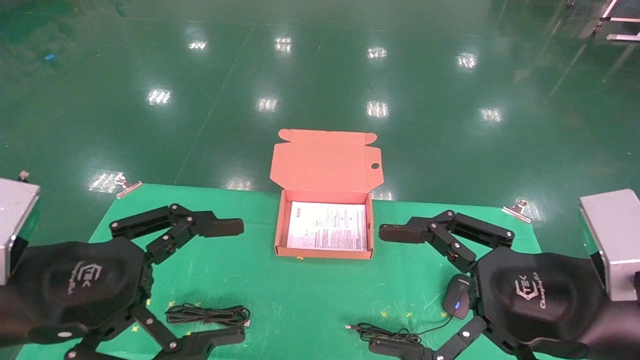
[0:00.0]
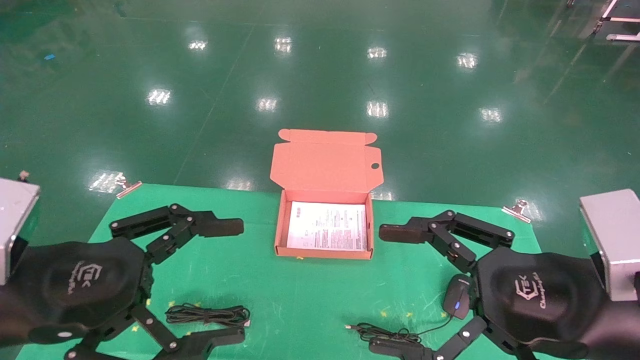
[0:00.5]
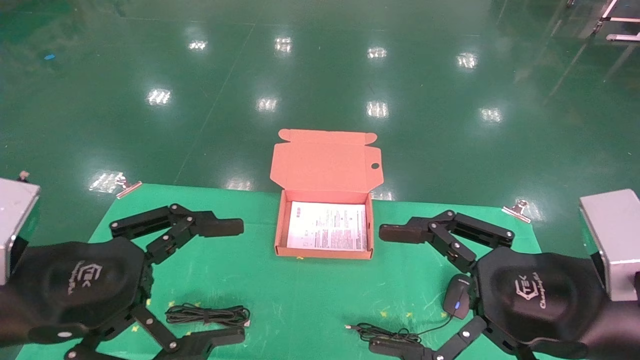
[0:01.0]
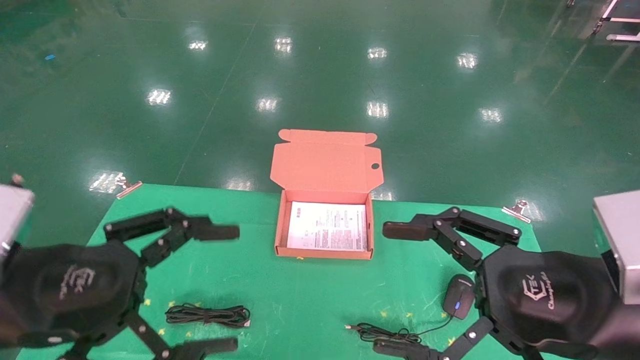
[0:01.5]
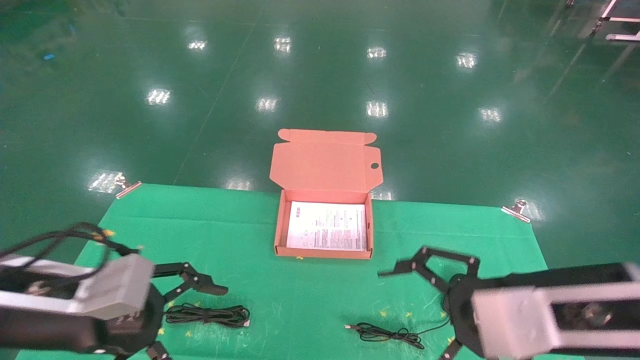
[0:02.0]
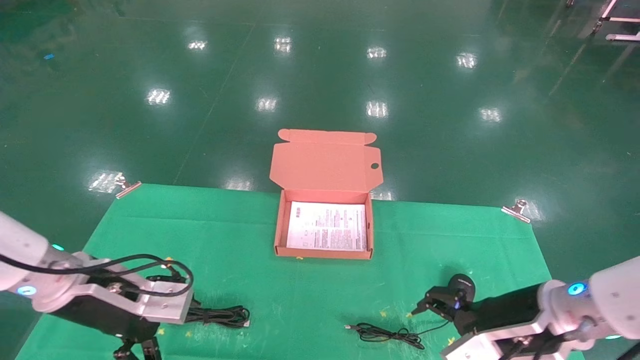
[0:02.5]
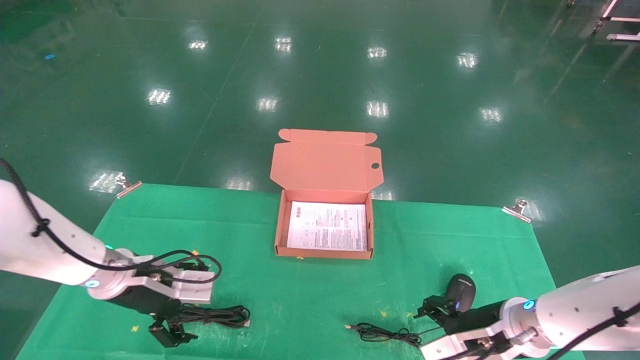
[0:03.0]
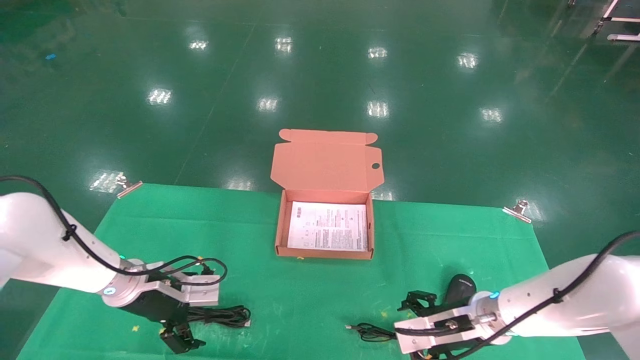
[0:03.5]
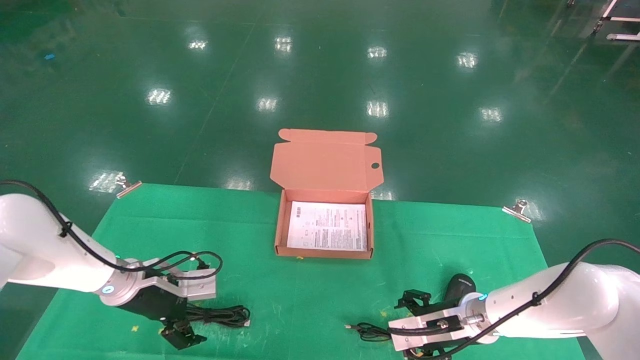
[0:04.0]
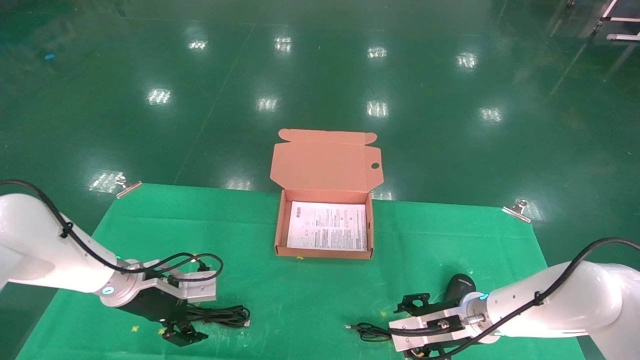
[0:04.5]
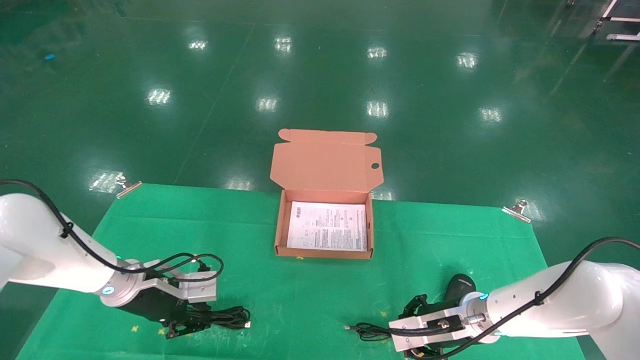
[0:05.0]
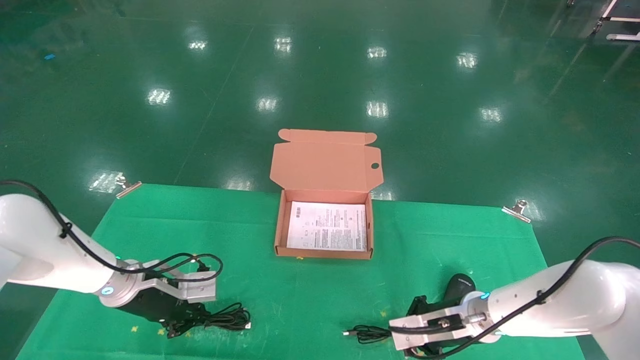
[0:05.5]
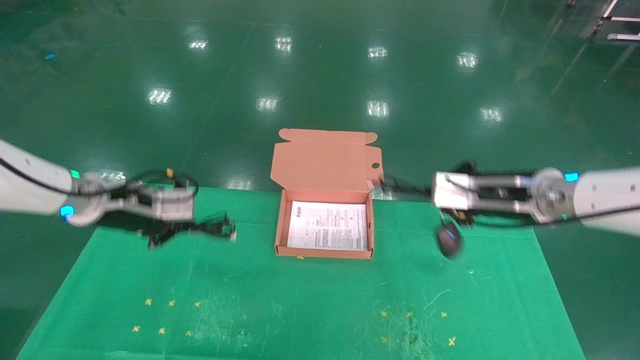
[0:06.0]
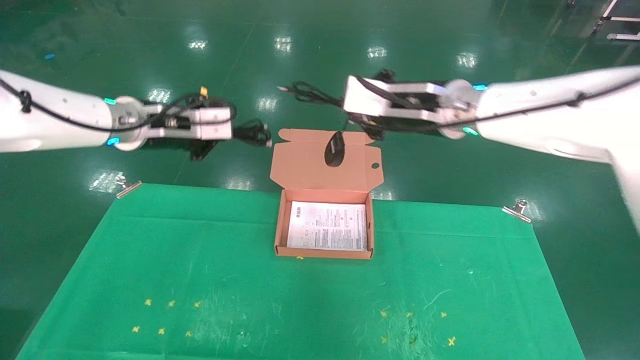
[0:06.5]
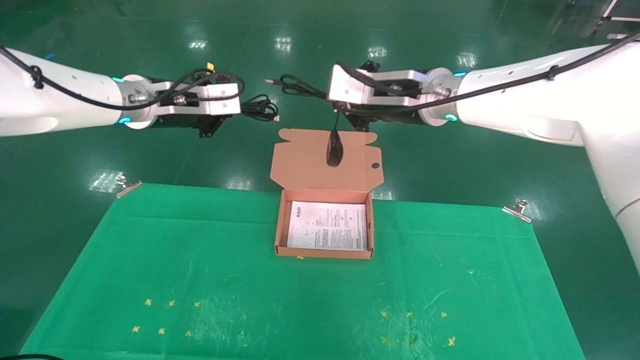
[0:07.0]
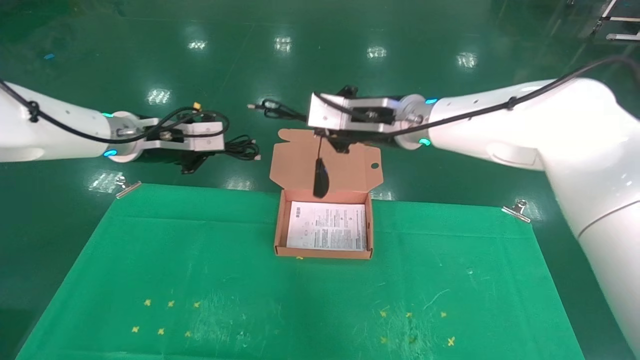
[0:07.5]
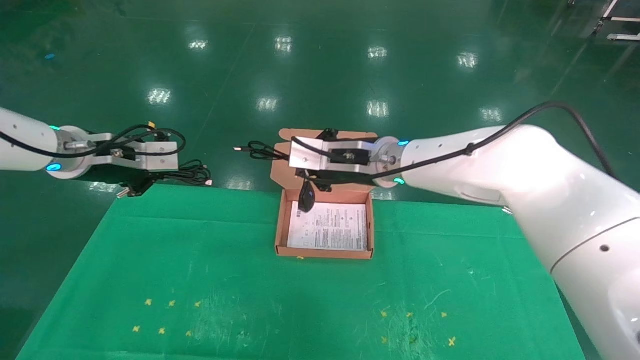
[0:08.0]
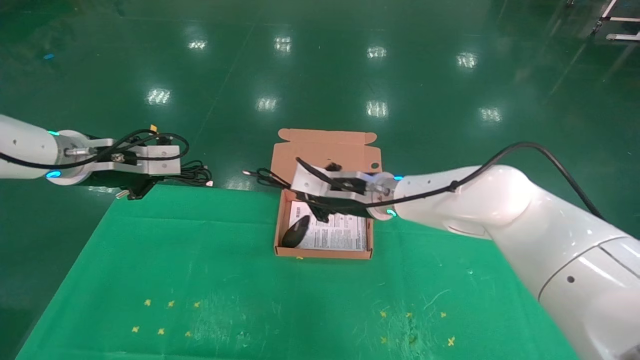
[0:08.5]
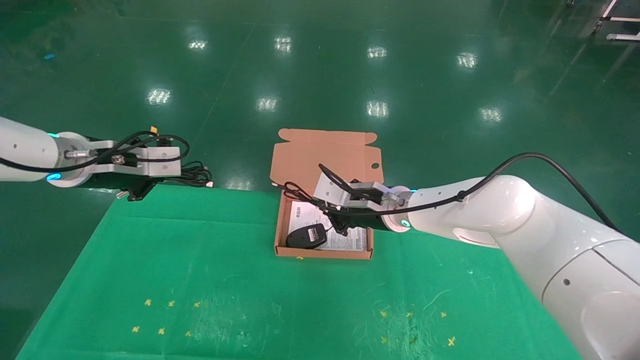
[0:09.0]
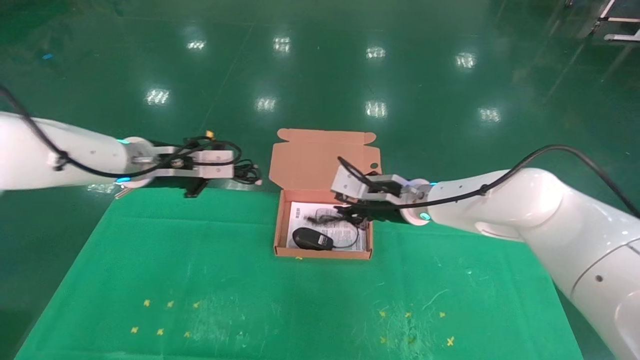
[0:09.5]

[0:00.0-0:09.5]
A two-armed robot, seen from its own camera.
Task of the whole recording: grasp data cable left put into box grasp mouse right put into box.
Step, 0:01.0 to 0:05.5: Grab and pick up both the mouse and power cord from the accessory packaging area at the same time.
0:00.0 to 0:02.0: The right gripper changes place by some 5 cm. The left gripper is displaced forward by some 5 cm.
0:02.0 to 0:04.0: Both grippers move forward and downward, roughly 20 cm.
0:04.0 to 0:05.5: The right gripper closes up. The left gripper closes.
0:05.5 to 0:07.5: The right gripper shifts roughly 30 cm upward and to the left. The left gripper moves upward, about 25 cm.
0:07.5 to 0:09.5: The right gripper goes roughly 15 cm downward.

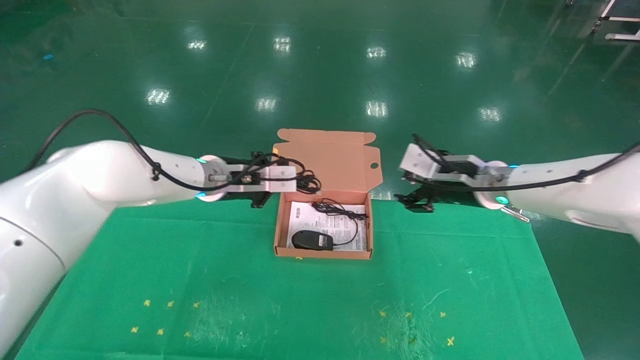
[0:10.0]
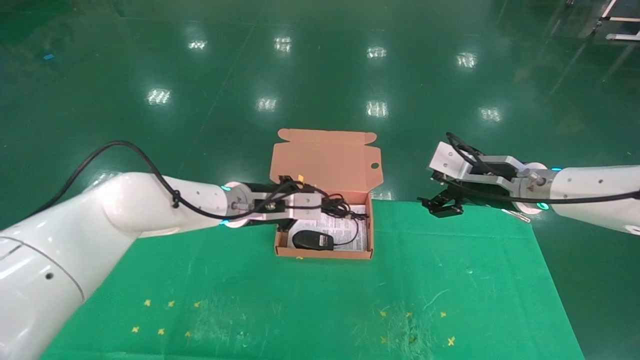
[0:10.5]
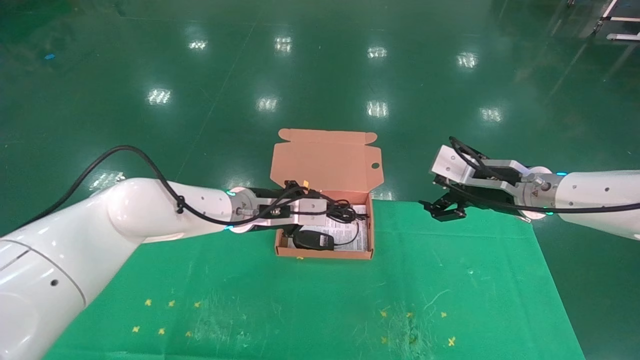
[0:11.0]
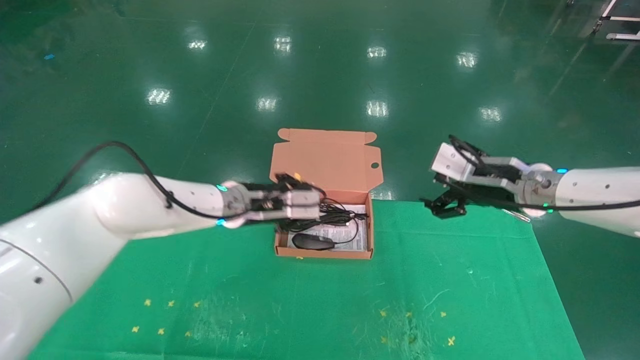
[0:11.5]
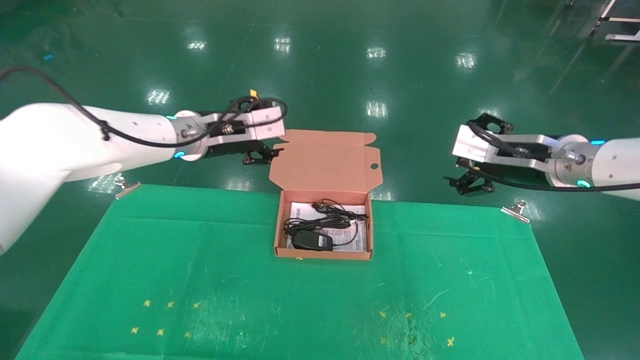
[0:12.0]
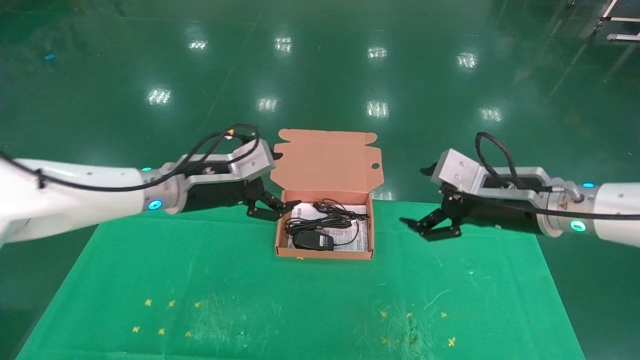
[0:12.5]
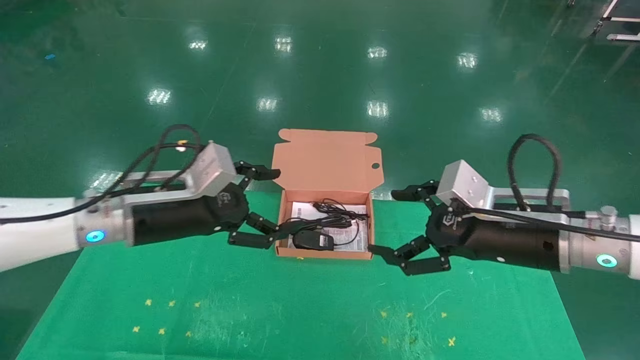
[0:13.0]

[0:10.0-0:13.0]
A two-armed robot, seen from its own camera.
Task of the whole recording: grasp data cable left put into box grasp mouse right put into box.
0:10.0 to 0:11.5: The right gripper moves to the right, about 5 cm, and opens up.
0:11.5 to 0:13.0: The right gripper is displaced backward by about 5 cm. Meanwhile the left gripper moves backward and to the left, roughly 10 cm, and opens up.

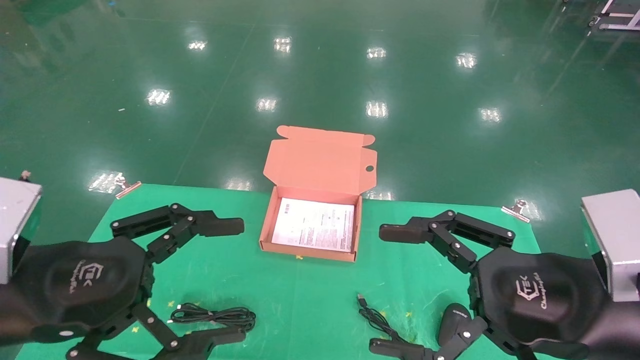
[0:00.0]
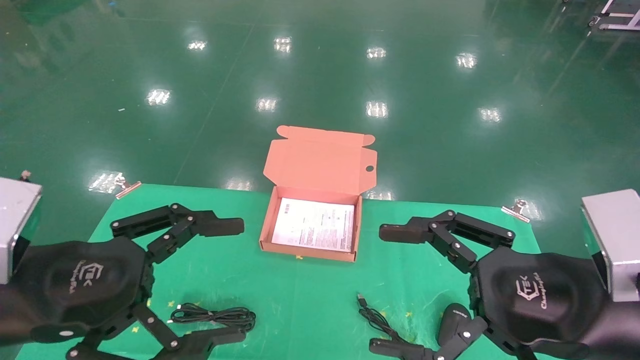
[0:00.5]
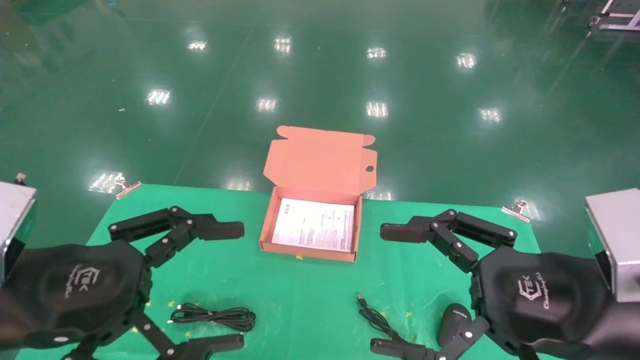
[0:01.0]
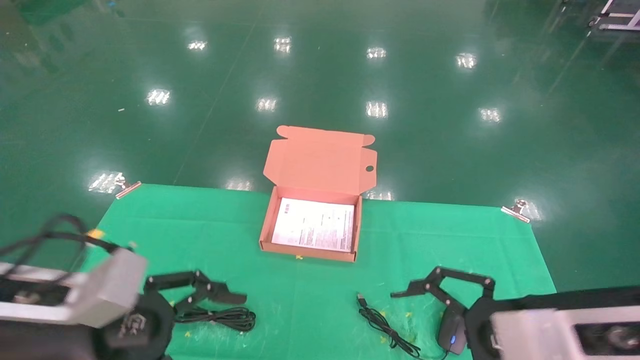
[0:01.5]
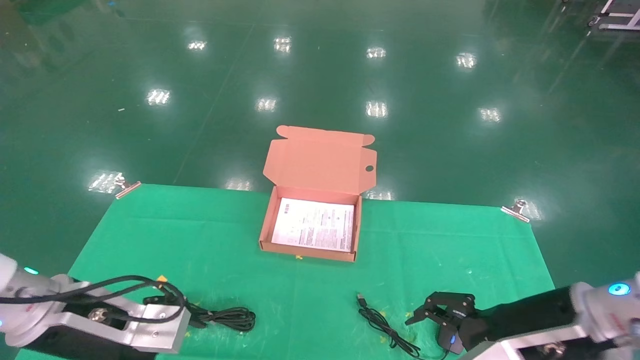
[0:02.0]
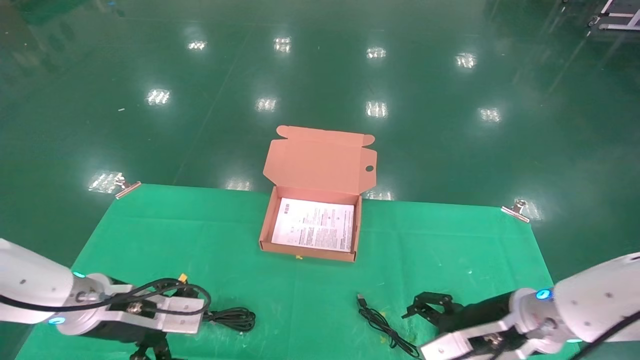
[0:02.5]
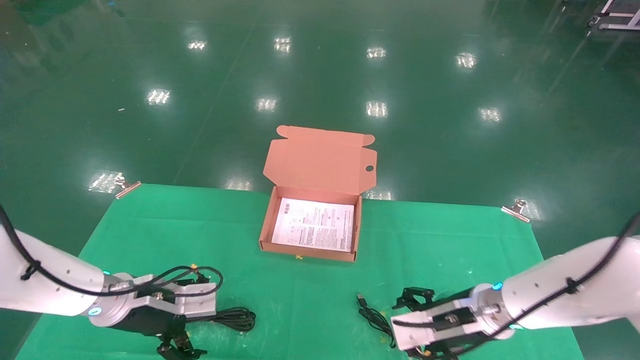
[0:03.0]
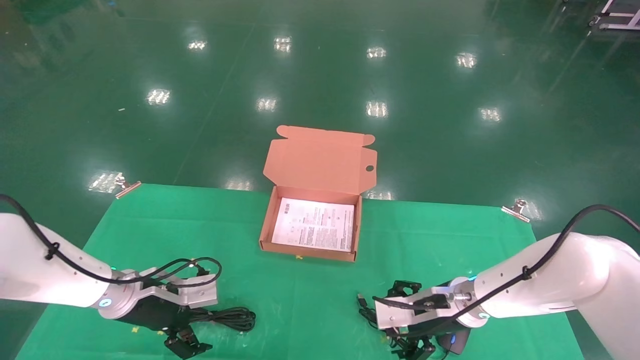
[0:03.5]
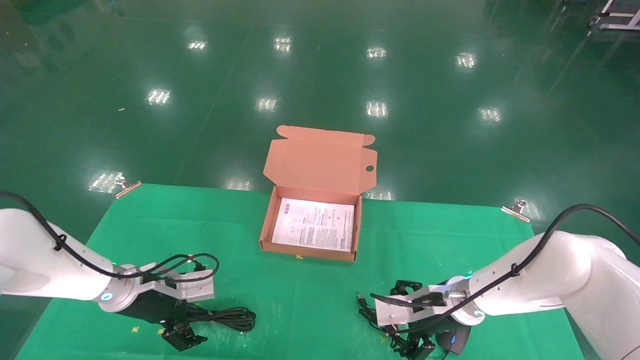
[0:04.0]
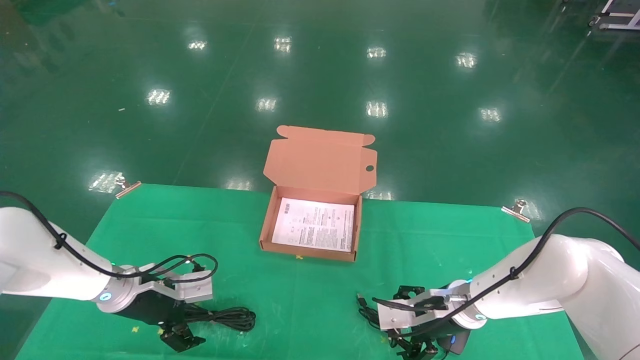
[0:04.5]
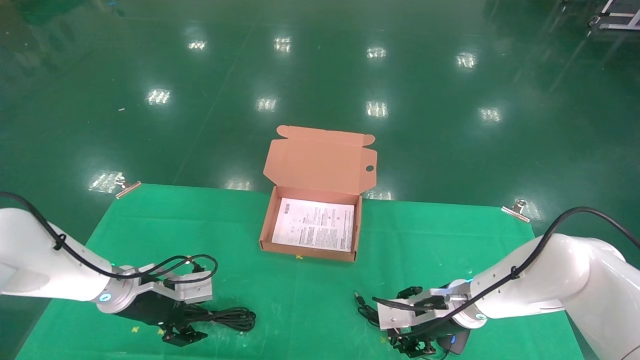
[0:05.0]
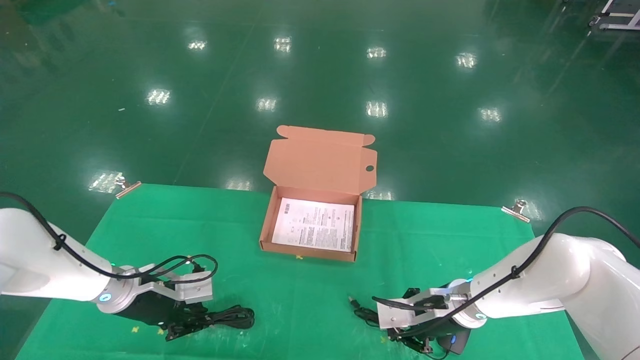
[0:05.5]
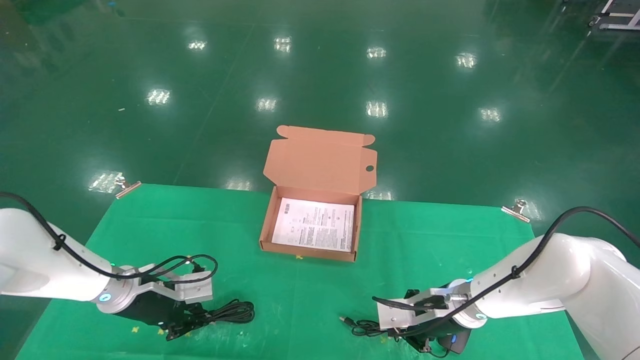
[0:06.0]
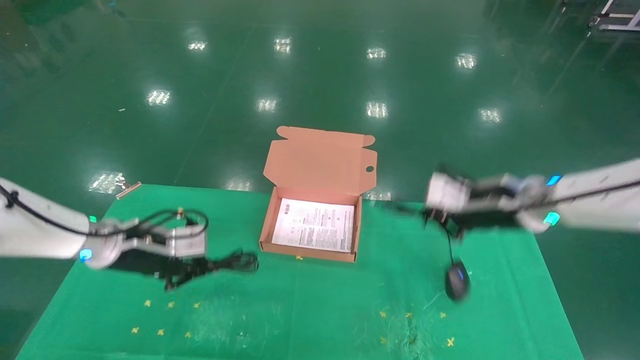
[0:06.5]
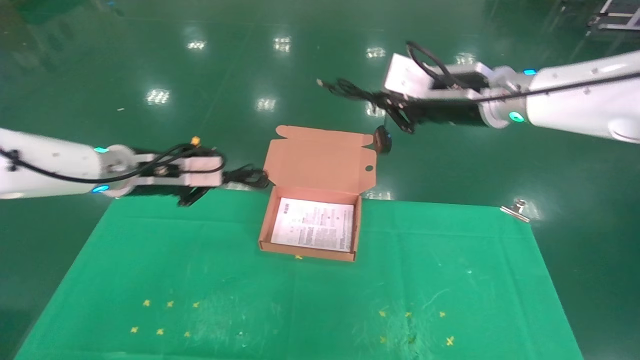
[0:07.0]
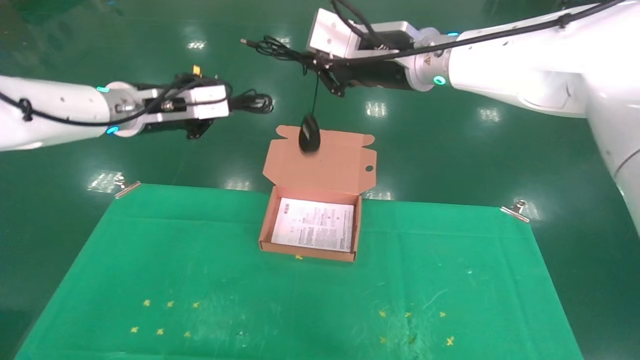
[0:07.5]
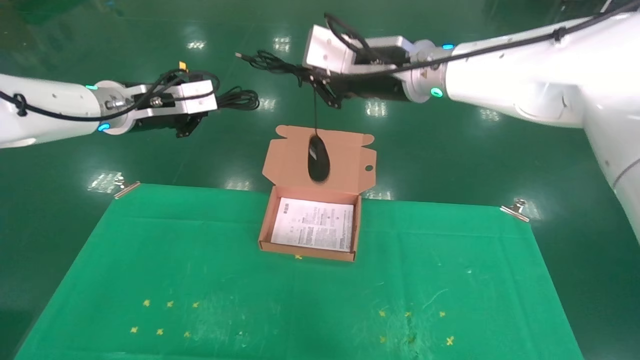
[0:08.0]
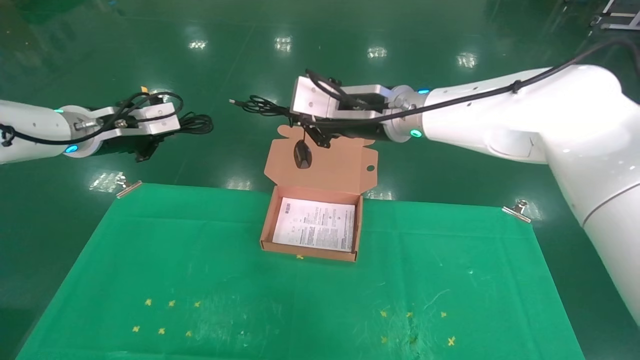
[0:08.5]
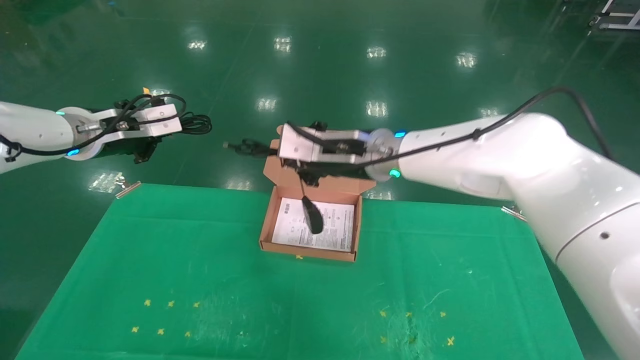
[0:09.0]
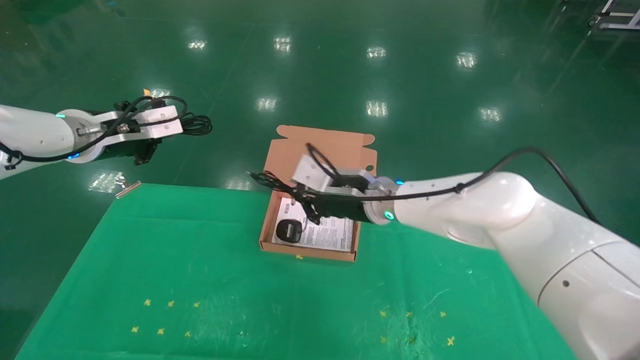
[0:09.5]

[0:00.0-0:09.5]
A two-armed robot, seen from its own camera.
Task of the whole recording: grasp data cable left put into box grasp mouse right put into box.
Step, 0:01.5 to 0:06.0: Grab and pick up both the mouse and power cord from the accessory packaging area at the same time.
0:00.0 to 0:02.0: Both grippers travel together forward and downward, about 10 cm.
0:02.0 to 0:04.0: The two grippers go some 15 cm forward and downward.
0:04.0 to 0:05.5: The right gripper closes up, while the left gripper closes its fingers.
0:05.5 to 0:07.5: The grippers both shift upward by roughly 30 cm.
0:07.5 to 0:09.5: The right gripper shifts about 20 cm downward; the left gripper travels to the left by some 5 cm.
